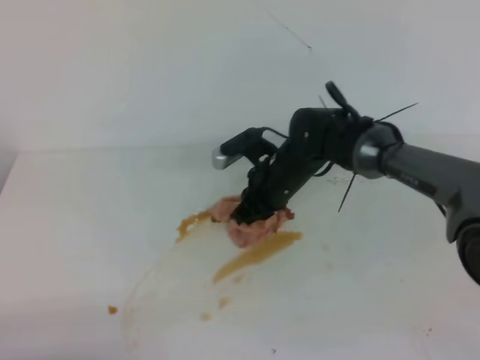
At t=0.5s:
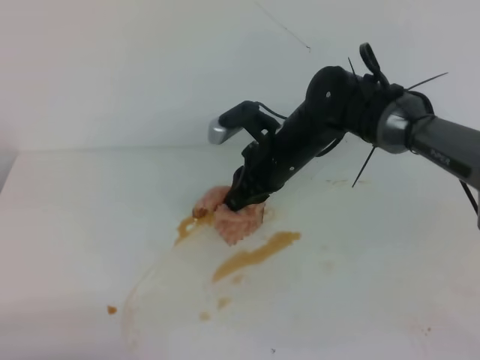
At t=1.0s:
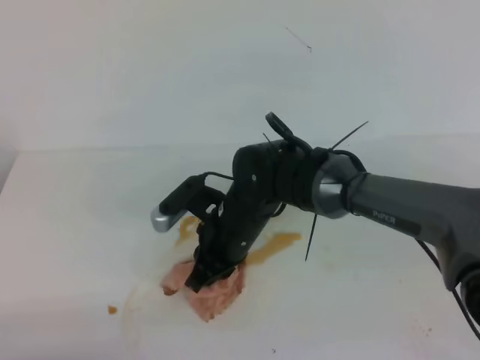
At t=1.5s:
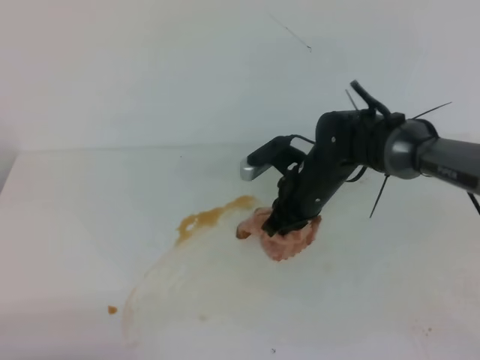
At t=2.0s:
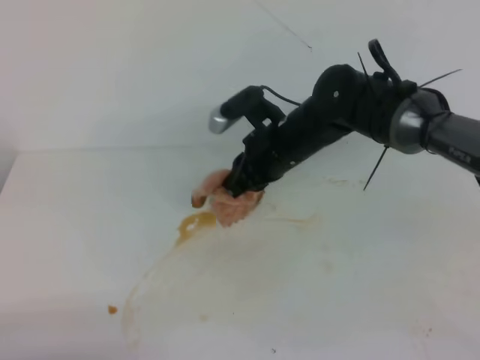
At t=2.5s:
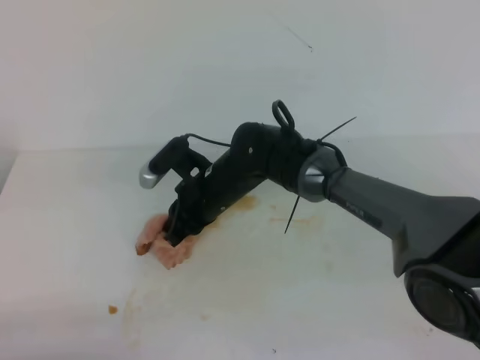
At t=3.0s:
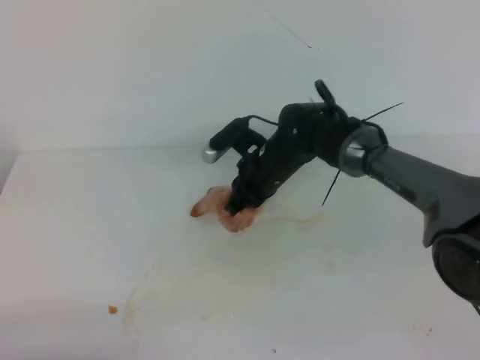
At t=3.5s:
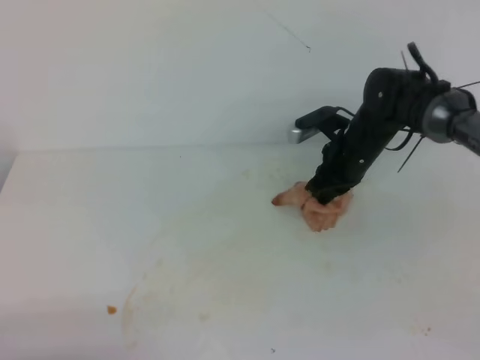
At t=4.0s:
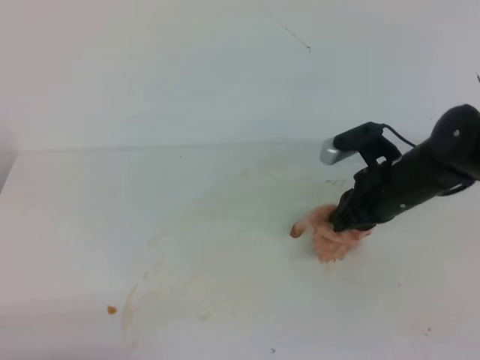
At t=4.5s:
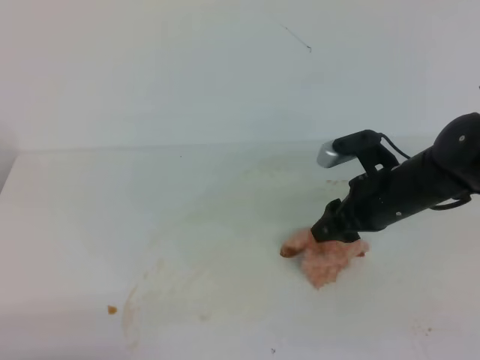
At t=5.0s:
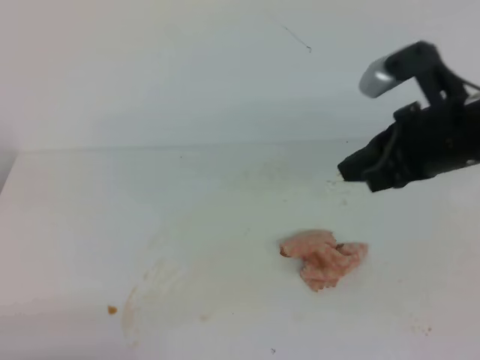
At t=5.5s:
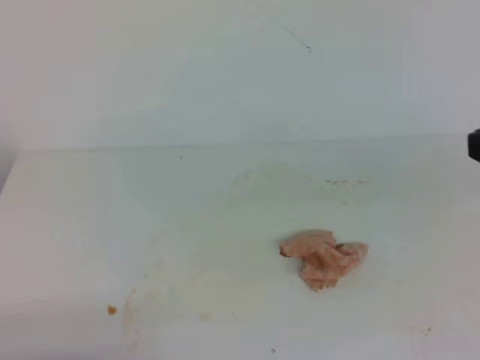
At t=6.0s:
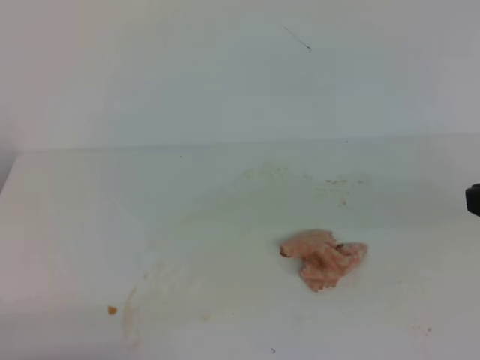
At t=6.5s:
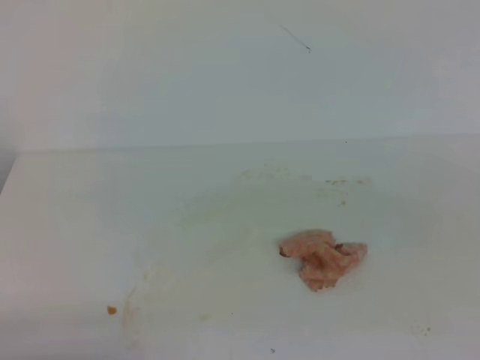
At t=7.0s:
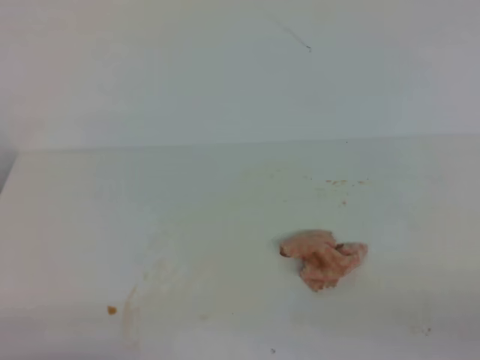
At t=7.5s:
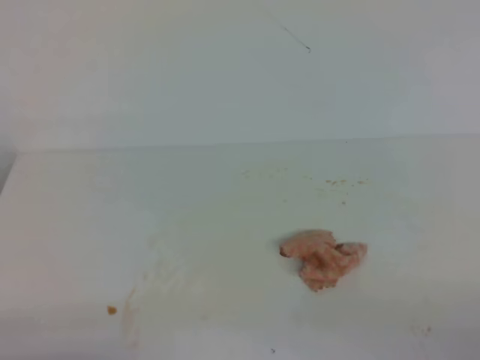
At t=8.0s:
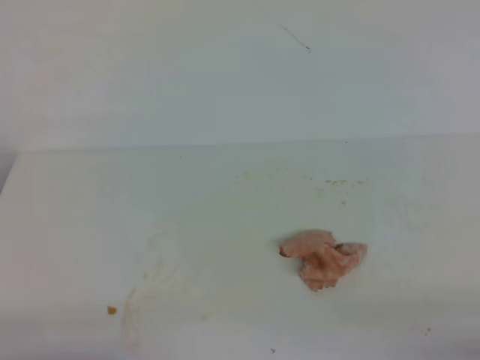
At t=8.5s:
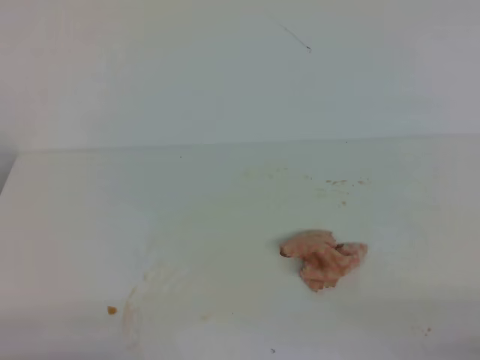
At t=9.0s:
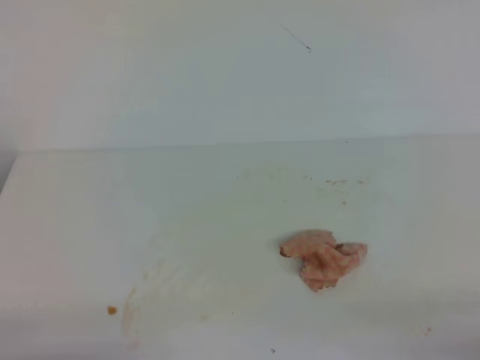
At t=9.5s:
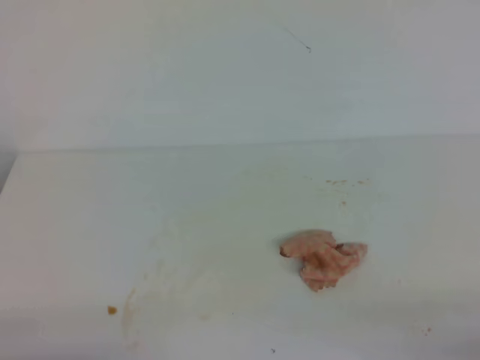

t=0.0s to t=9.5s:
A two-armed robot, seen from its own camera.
t=0.0s to t=2.0s: The right gripper goes about 5 cm upward.
t=2.0s to t=4.0s: The right gripper goes approximately 10 cm to the right.
t=4.0s to t=5.5s: The right gripper travels upward and backward by some 25 cm, and opens, then closes again.
t=5.5s to t=7.5s: The right gripper goes roughly 25 cm downward, backward and to the right.

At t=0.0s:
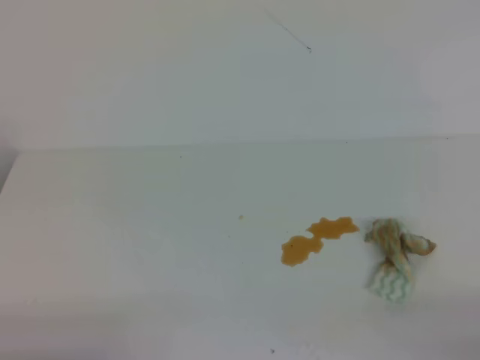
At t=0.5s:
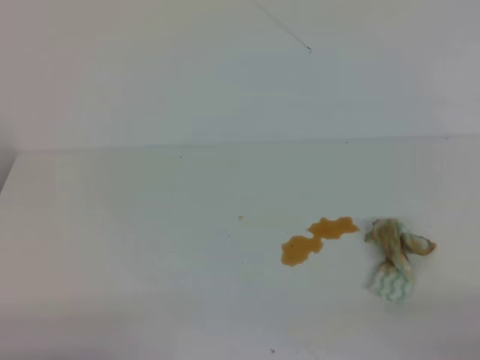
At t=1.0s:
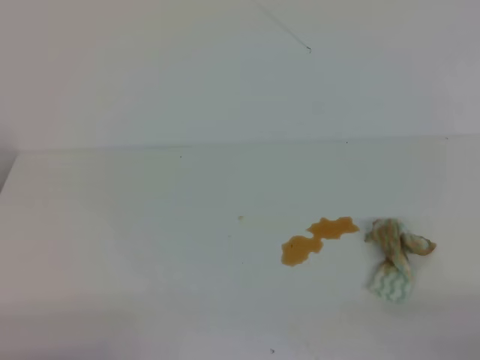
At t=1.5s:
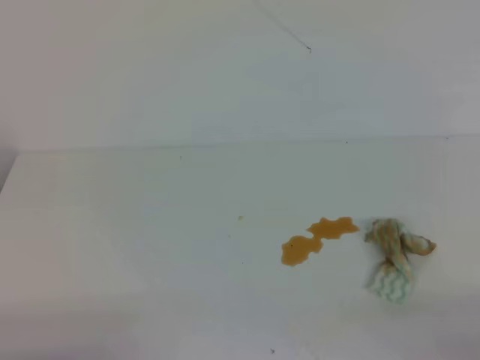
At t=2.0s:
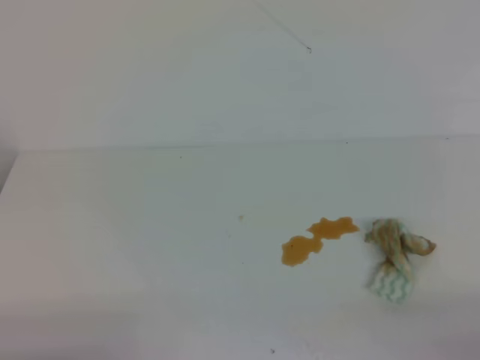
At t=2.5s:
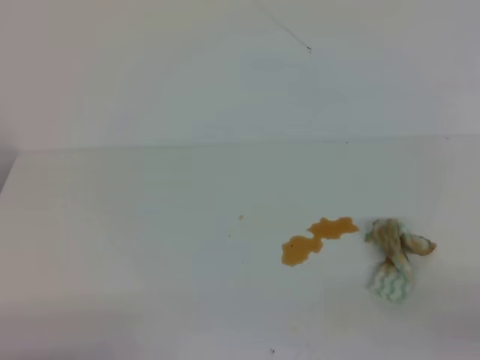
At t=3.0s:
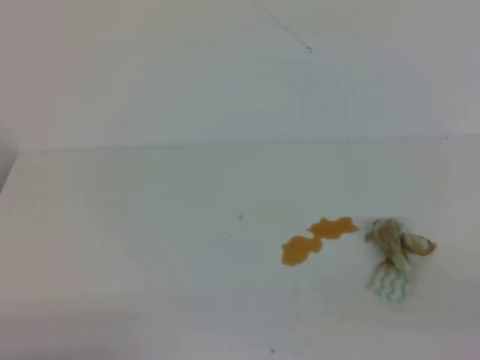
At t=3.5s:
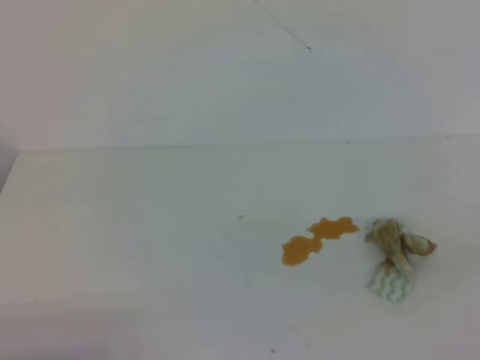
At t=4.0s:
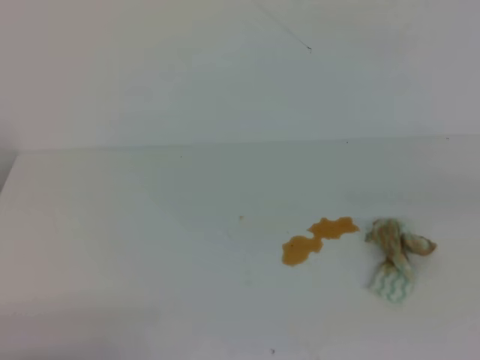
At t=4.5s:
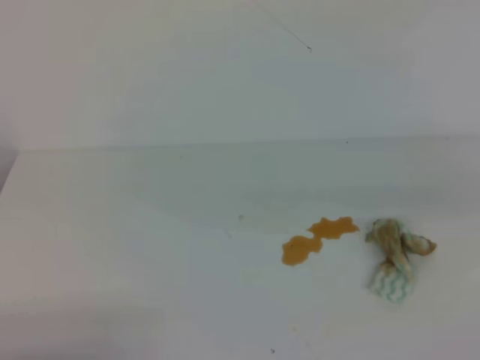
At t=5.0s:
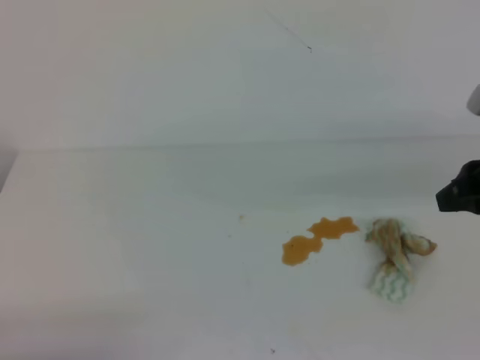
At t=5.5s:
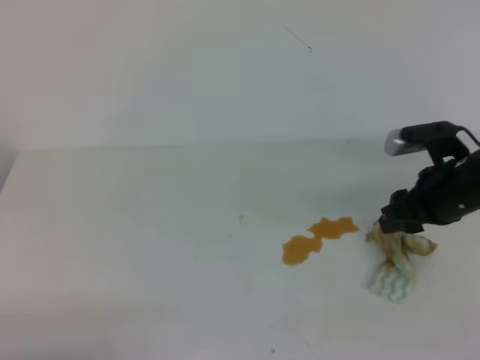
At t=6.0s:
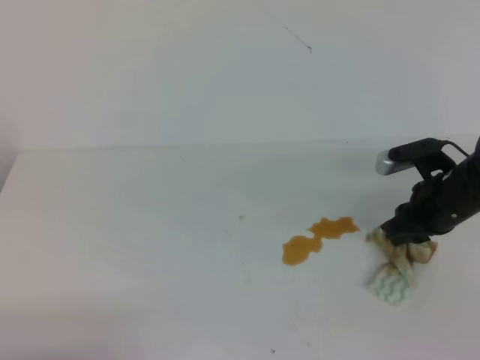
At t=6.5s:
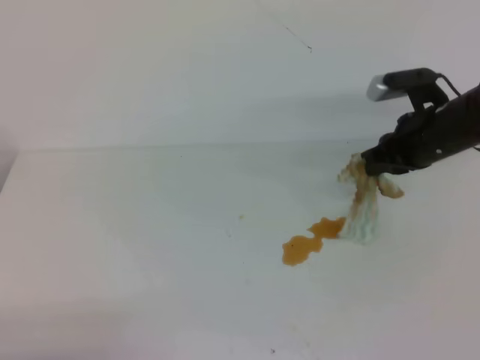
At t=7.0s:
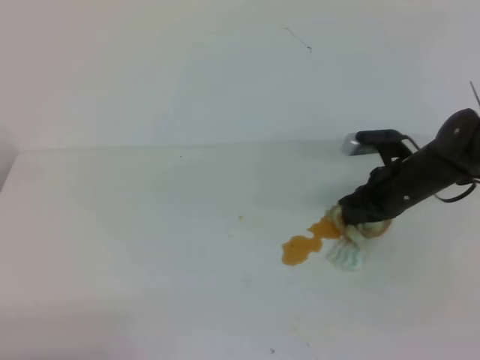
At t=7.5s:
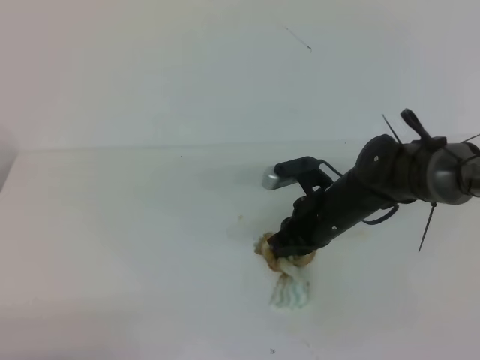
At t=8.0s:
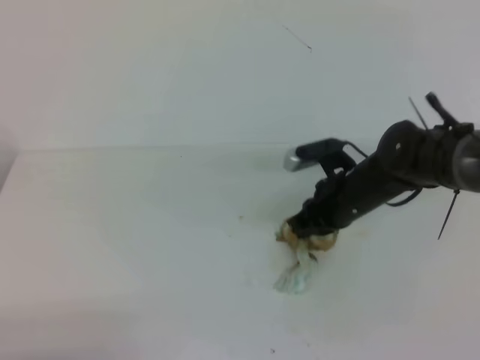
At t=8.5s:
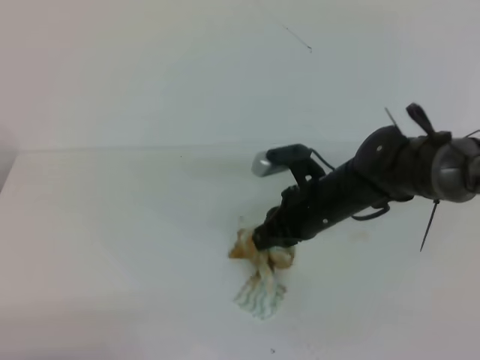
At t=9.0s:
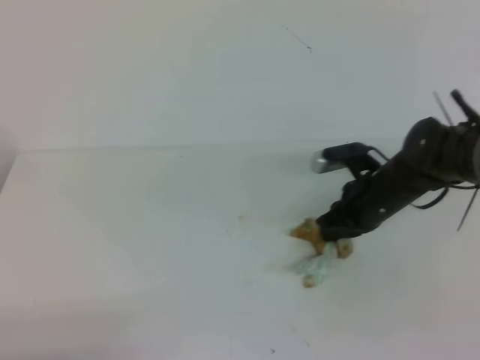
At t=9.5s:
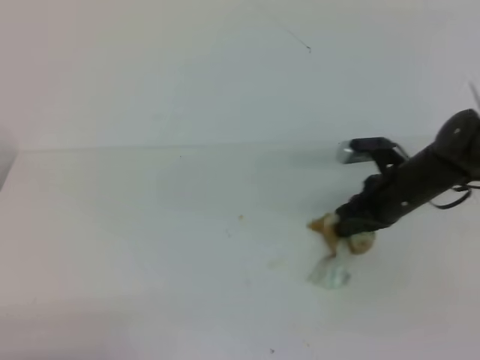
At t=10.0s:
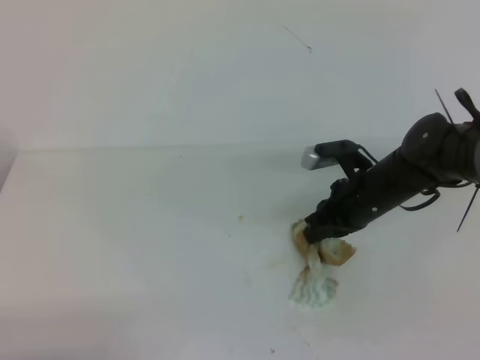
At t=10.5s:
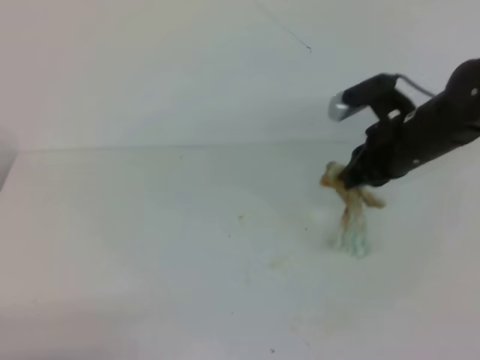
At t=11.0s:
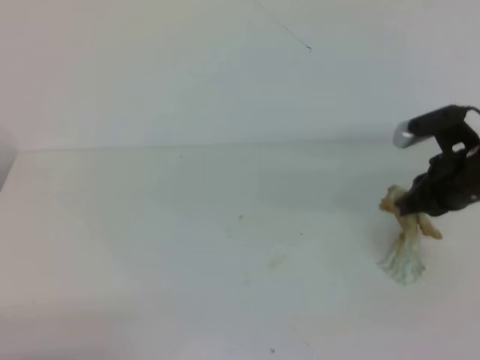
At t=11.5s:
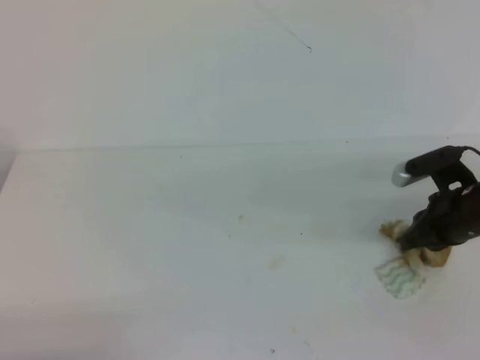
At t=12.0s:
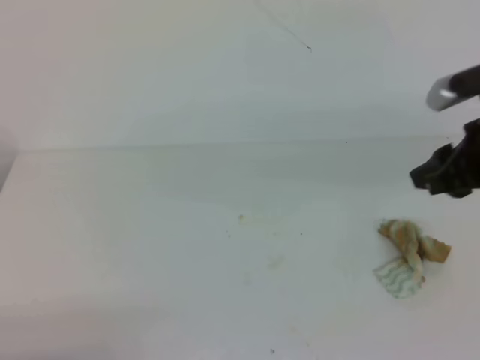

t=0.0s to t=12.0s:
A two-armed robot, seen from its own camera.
t=0.0s to t=2.0s: Both grippers stay put.
t=4.0s to t=6.0s: The right gripper moves forward and downward, approximately 30 cm, and opens up.
t=6.0s to t=8.0s: The right gripper is displaced to the left by about 10 cm, and closes its fingers.
t=8.0s to t=10.0s: The right gripper reaches about 5 cm to the right, then returns.
t=10.0s to t=12.0s: The right gripper goes up and down, approximately 15 cm each way, reversing 2 times, and opens its fingers.

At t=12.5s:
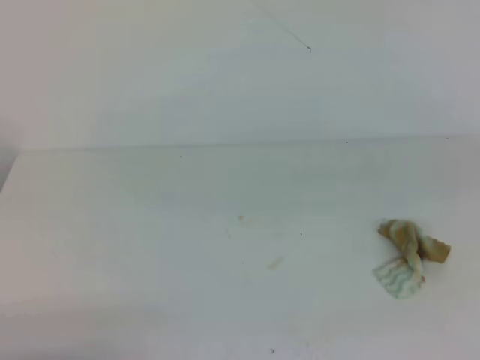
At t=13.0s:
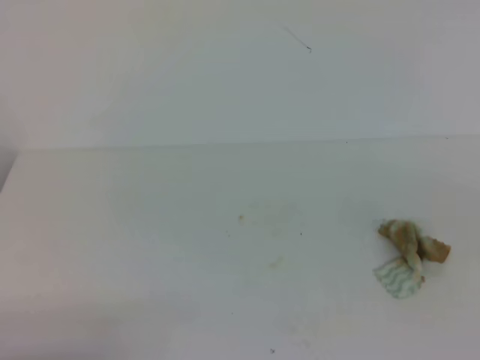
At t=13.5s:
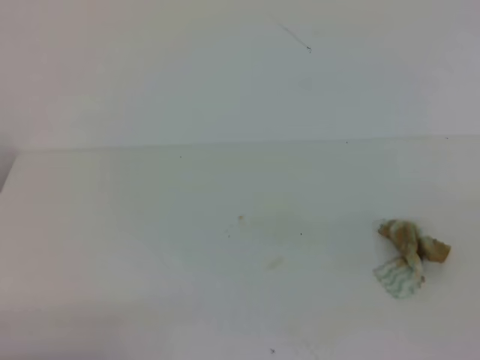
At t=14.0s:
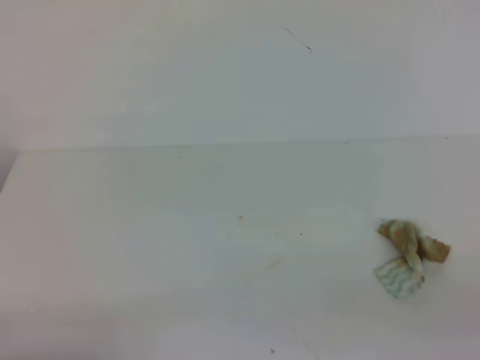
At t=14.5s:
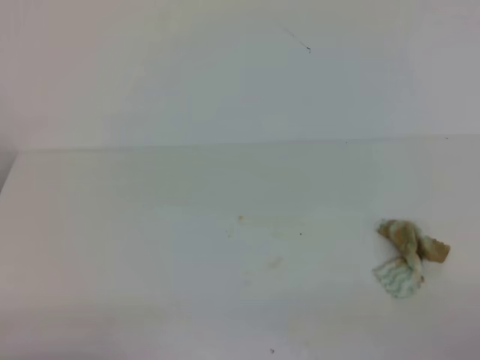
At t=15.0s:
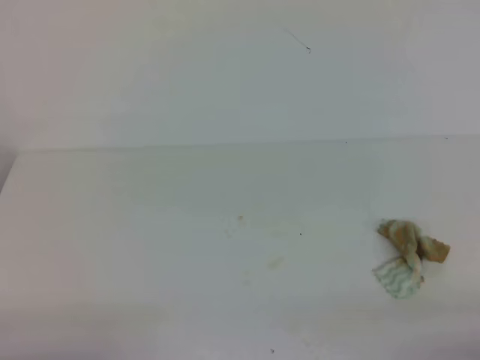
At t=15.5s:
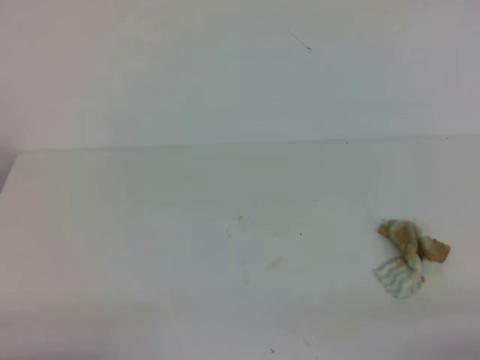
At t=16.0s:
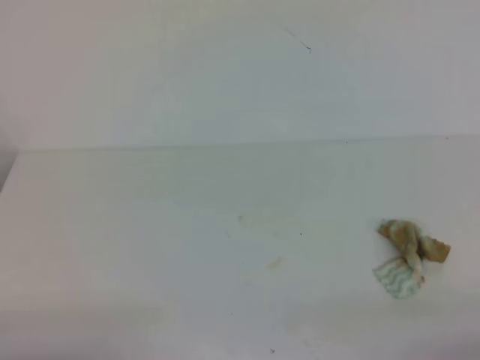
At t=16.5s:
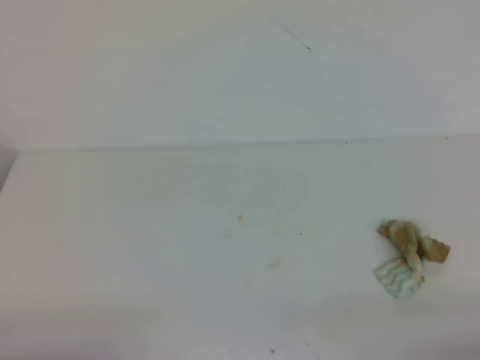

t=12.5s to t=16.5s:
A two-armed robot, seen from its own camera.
t=12.5s to t=14.5s: The right gripper shifts roughly 25 cm downward and backward.
